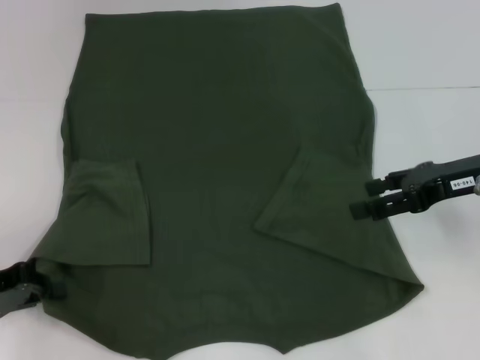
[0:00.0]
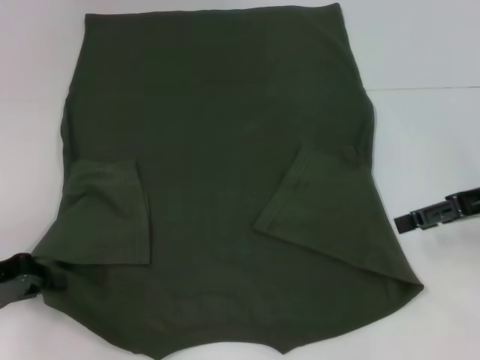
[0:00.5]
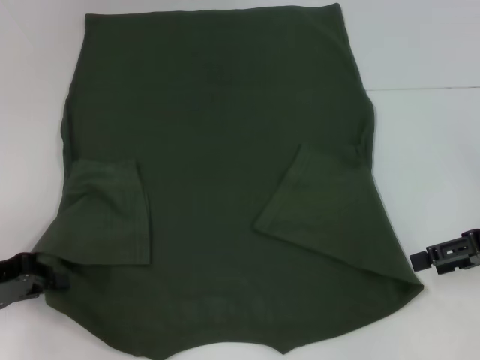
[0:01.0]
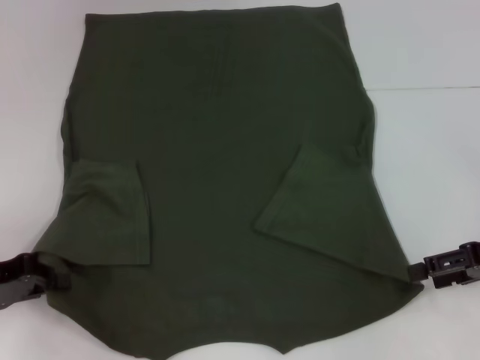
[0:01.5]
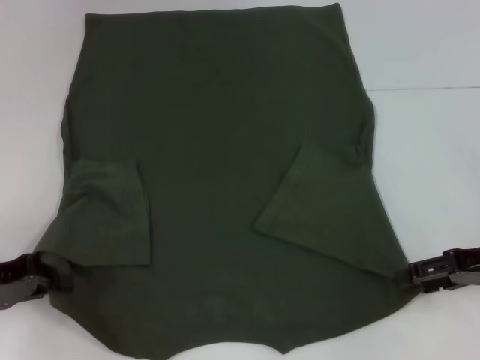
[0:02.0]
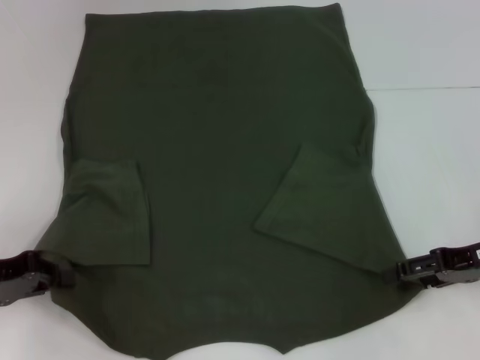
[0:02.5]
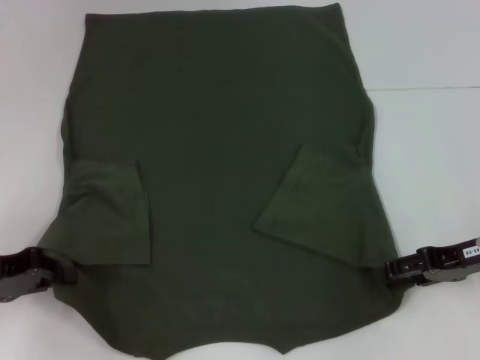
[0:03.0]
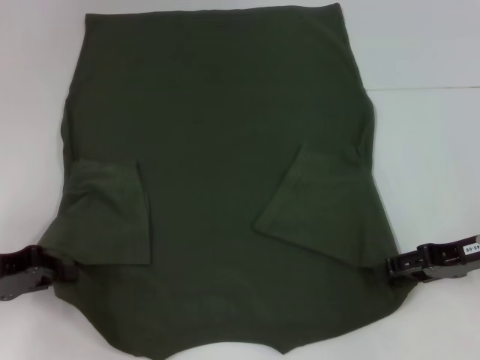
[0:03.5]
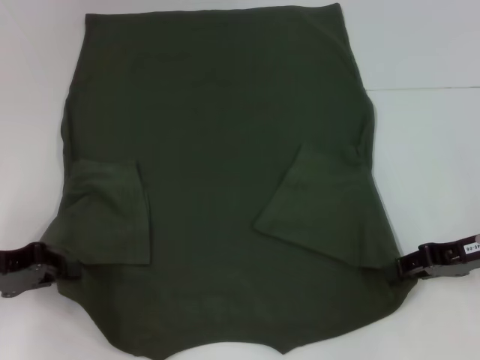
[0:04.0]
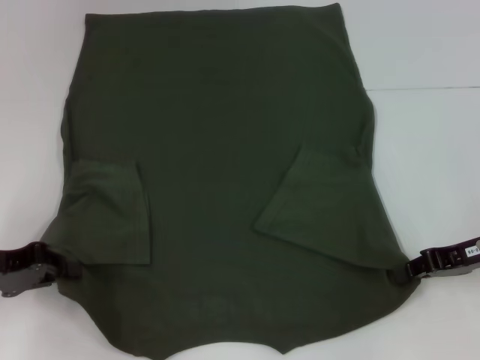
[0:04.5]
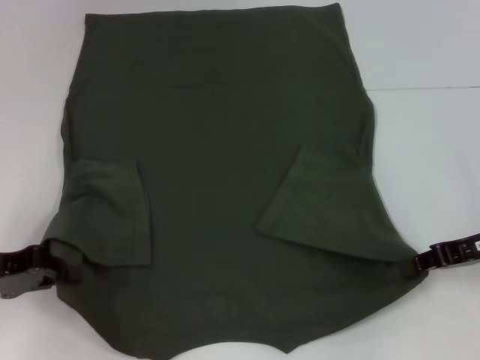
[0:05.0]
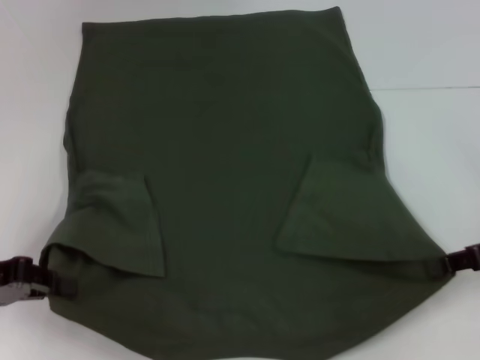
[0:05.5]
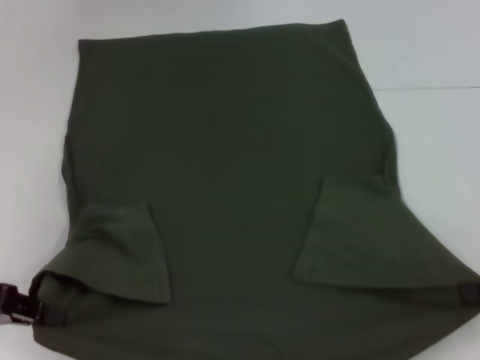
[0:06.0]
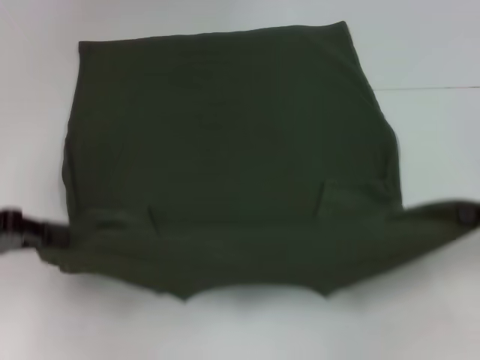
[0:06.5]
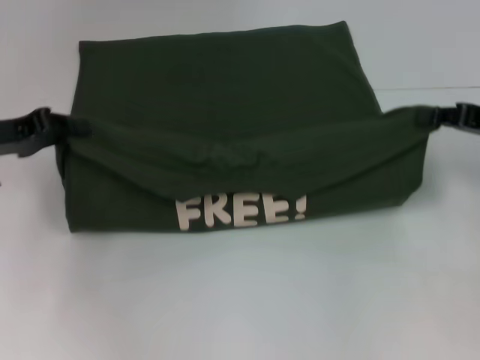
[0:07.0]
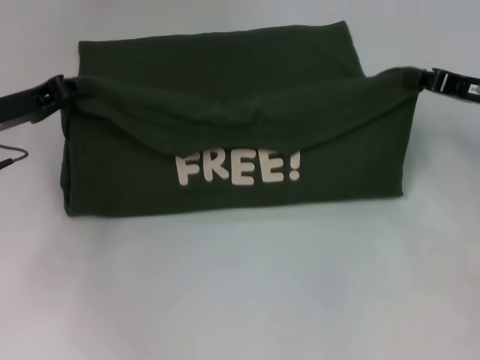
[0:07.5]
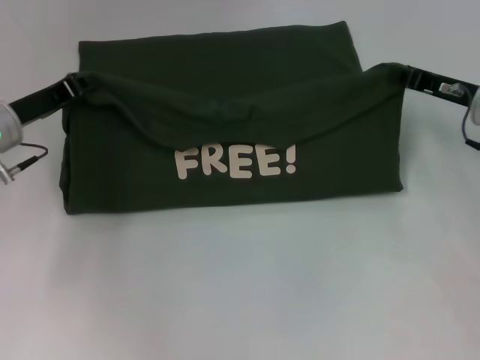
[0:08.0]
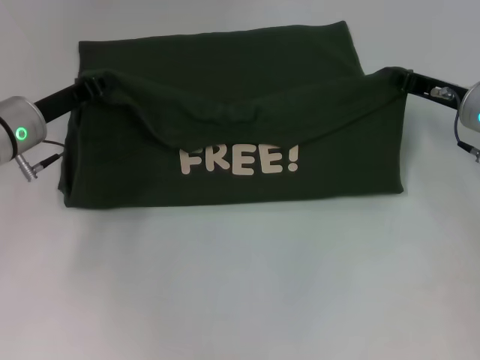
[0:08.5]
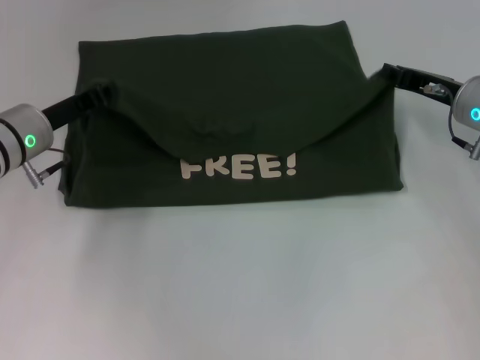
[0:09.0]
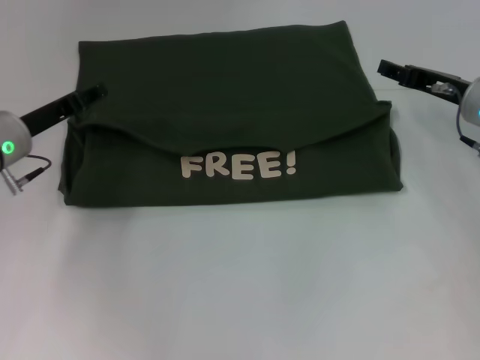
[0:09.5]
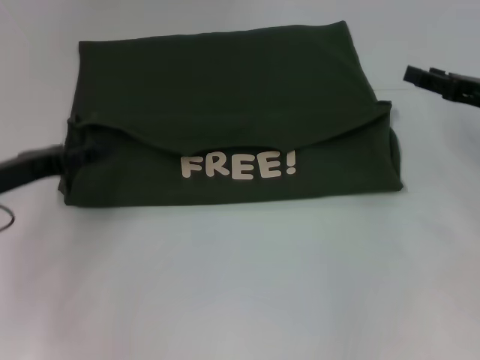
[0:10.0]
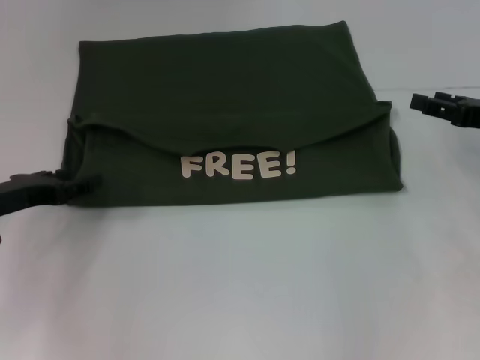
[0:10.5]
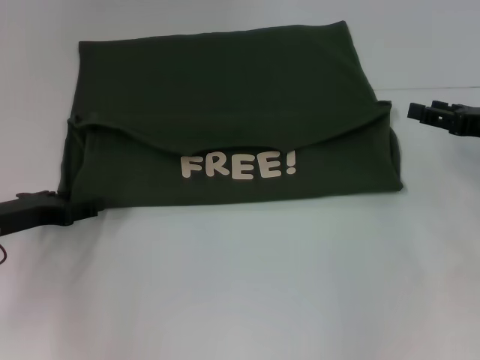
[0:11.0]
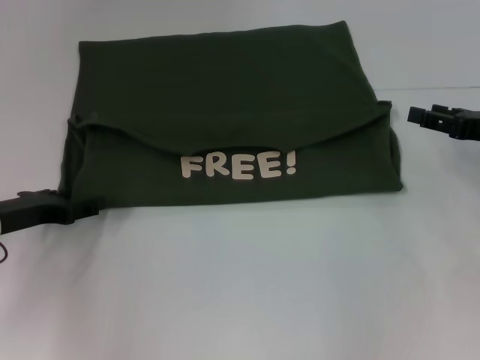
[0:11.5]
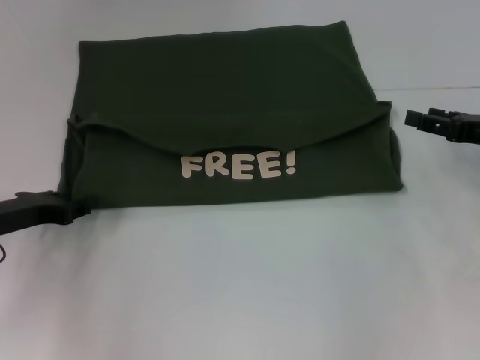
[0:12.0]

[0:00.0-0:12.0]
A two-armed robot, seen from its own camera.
Step, 0:00.5 to 0:04.5: Grab the bottom right corner with your right hand.
Step, 0:05.0 to 0:09.5: Fold the clothes with your left hand.
Step, 0:05.0 to 0:09.5: Fold the clothes with your right hand.
0:00.0 to 0:02.0: The right gripper is displaced downward by about 5 cm.
0:02.0 to 0:04.0: The right gripper closes.
0:04.0 to 0:06.0: The right gripper is displaced to the right and backward by approximately 10 cm, and closes up.
0:06.0 to 0:08.0: The right gripper travels forward and to the left by some 15 cm, while the left gripper travels forward and to the right by roughly 15 cm.
0:08.0 to 0:10.0: The right gripper changes place by about 5 cm, and opens. The left gripper is displaced backward by approximately 5 cm, and opens its fingers.
0:10.0 to 0:12.0: The grippers move only a little.

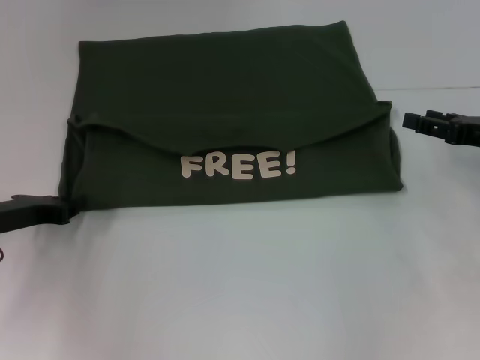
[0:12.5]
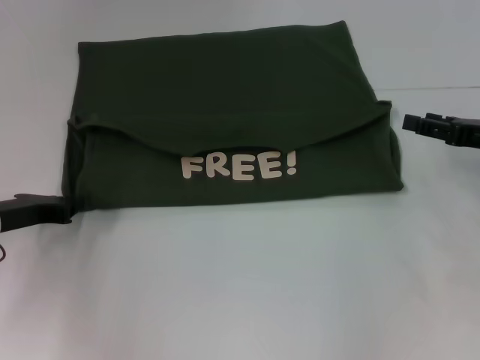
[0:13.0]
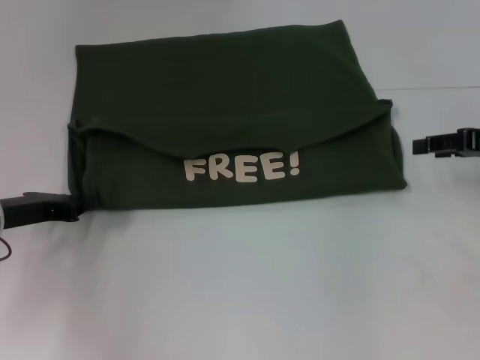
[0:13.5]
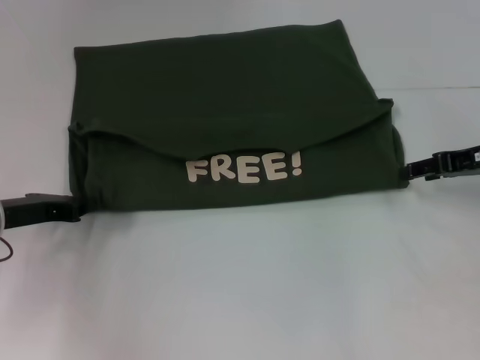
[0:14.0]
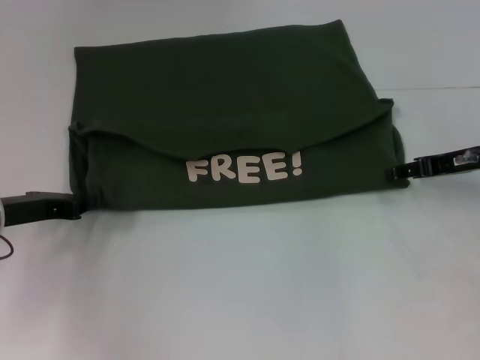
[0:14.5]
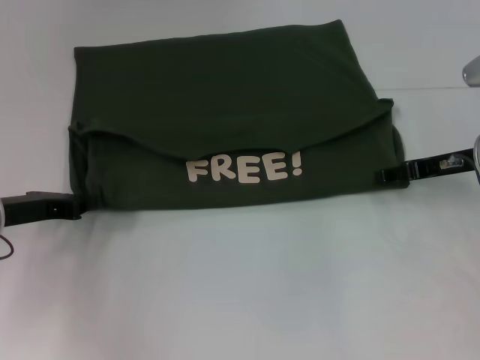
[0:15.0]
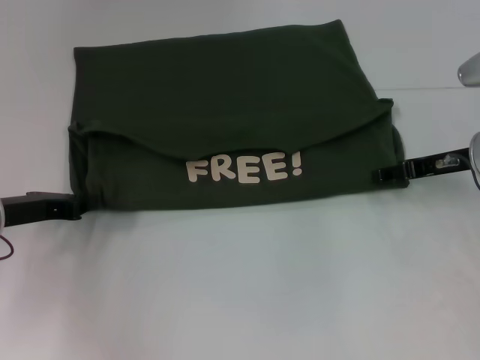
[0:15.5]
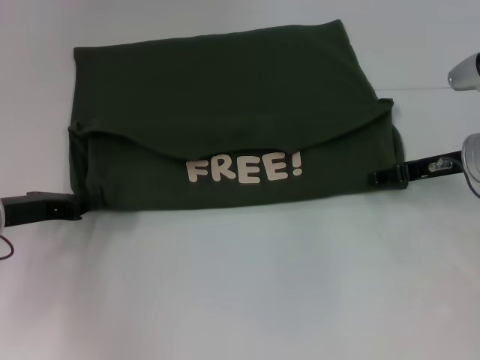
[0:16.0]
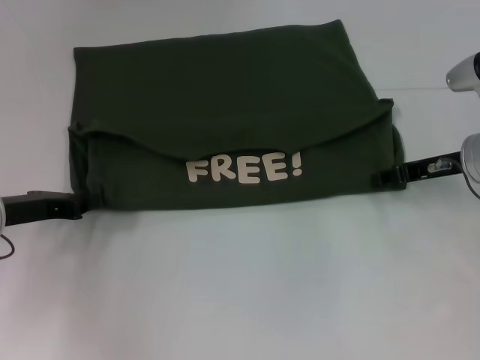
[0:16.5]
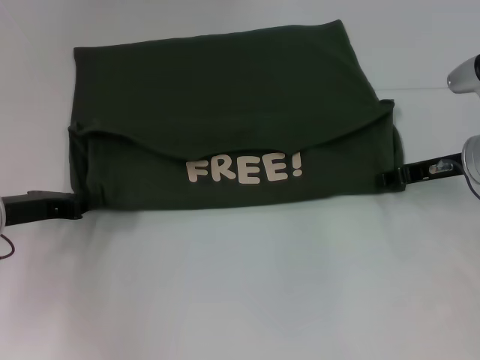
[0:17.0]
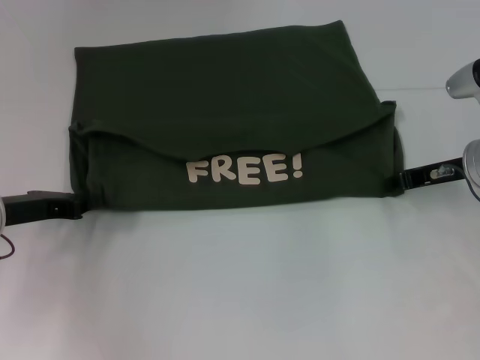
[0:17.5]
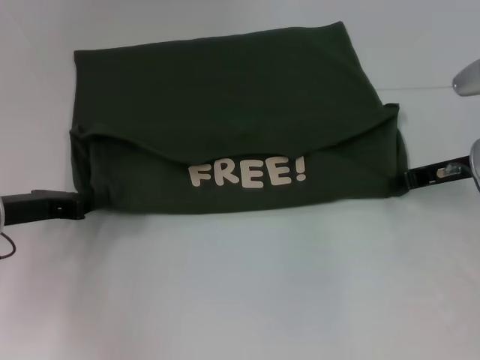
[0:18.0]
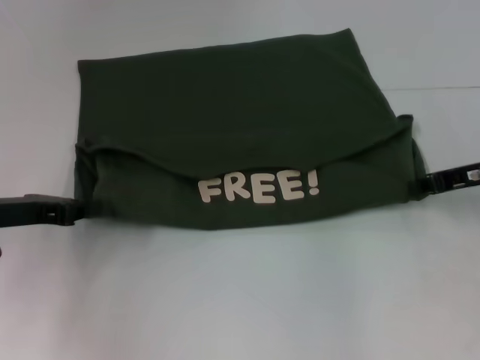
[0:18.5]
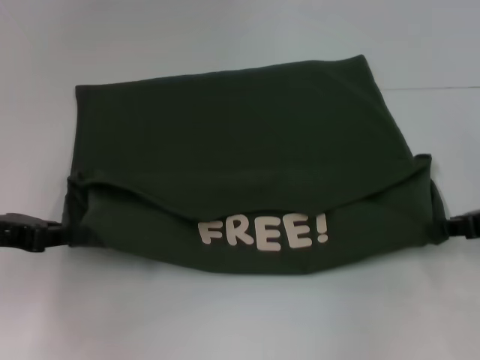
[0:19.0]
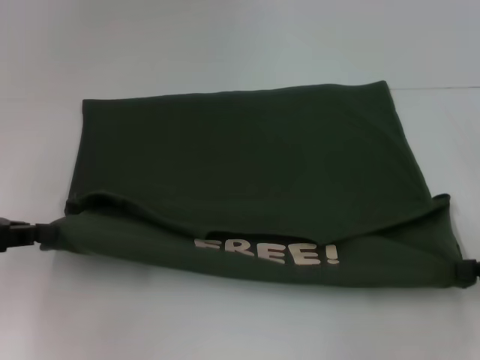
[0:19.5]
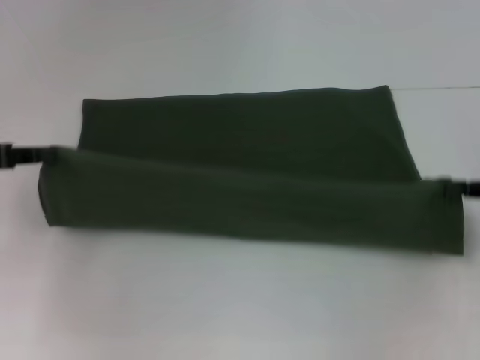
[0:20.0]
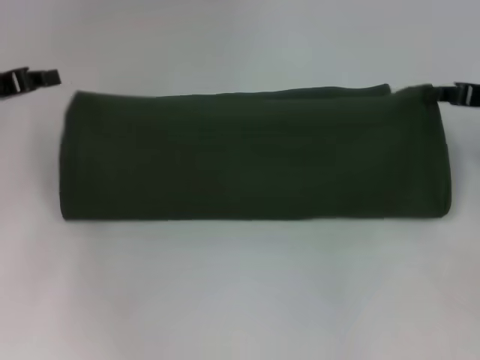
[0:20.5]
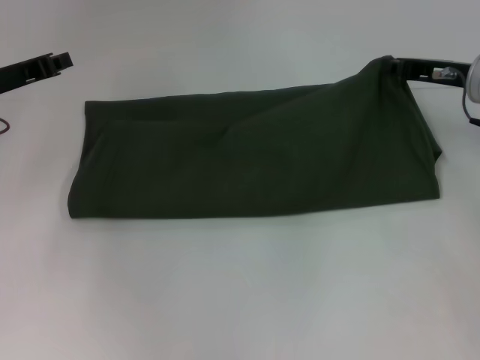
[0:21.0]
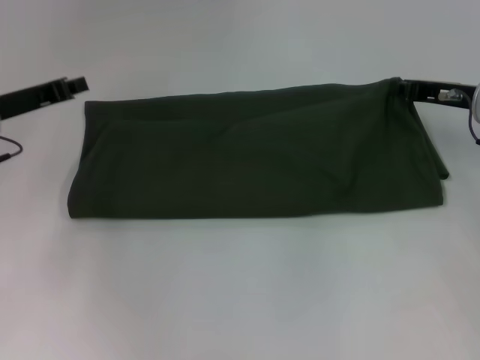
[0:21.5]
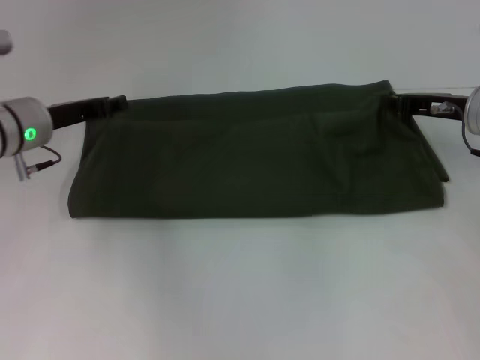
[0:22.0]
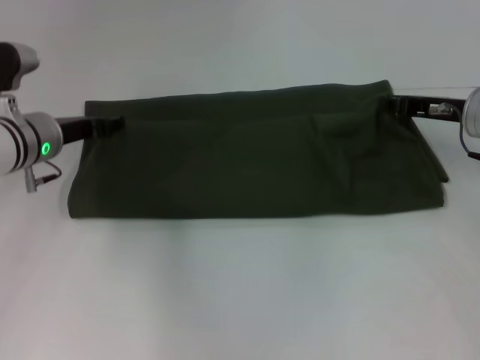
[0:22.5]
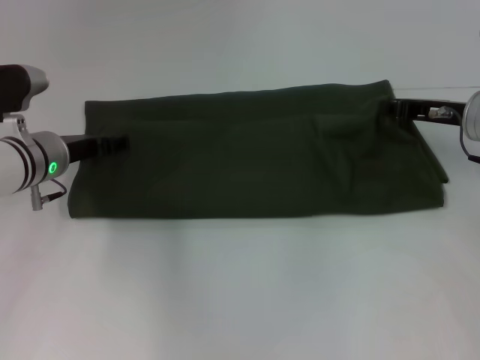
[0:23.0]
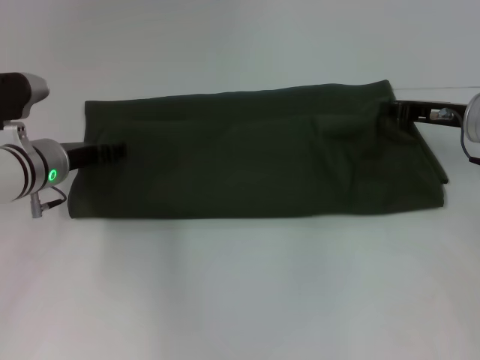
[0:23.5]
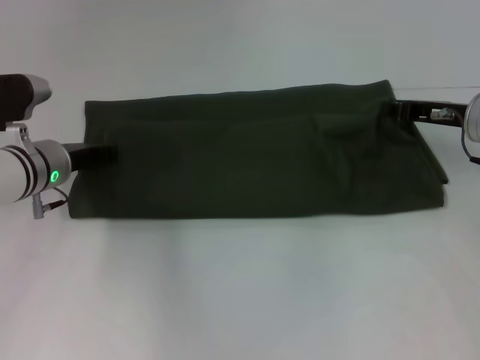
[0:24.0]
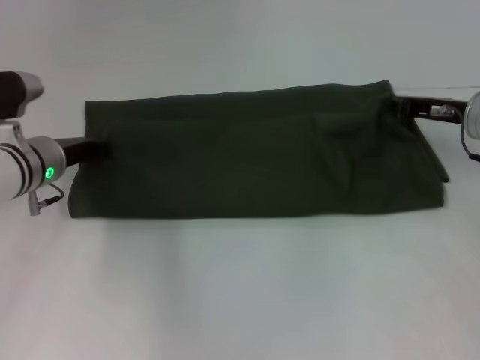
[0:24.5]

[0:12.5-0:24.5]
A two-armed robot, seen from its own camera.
Step, 0:12.5 to 0:19.0: Pull the clothes with your left hand.
Step, 0:12.5 to 0:19.0: Pull the clothes with your right hand.
0:12.5 to 0:14.5: The right gripper moves roughly 5 cm.
0:14.5 to 0:16.5: The grippers stay close to where they were, moving slightly.
0:16.5 to 0:18.5: The right gripper closes up.
0:18.5 to 0:20.5: The left gripper is displaced upward and forward by about 10 cm, while the right gripper goes backward and returns, roughly 10 cm each way.
0:20.5 to 0:22.5: The right gripper shifts about 5 cm to the left; the left gripper moves to the right and downward, about 10 cm, and opens up.
0:22.5 to 0:24.5: The left gripper closes.

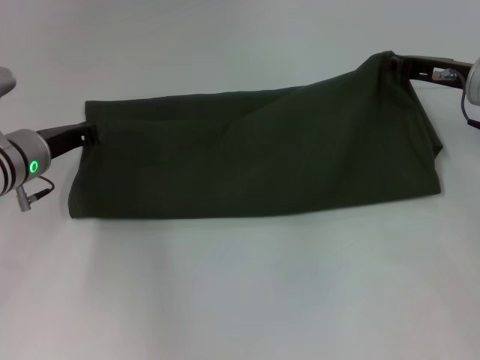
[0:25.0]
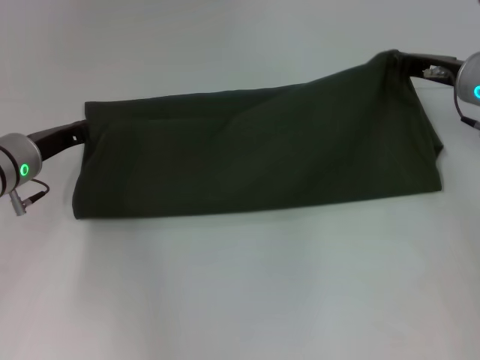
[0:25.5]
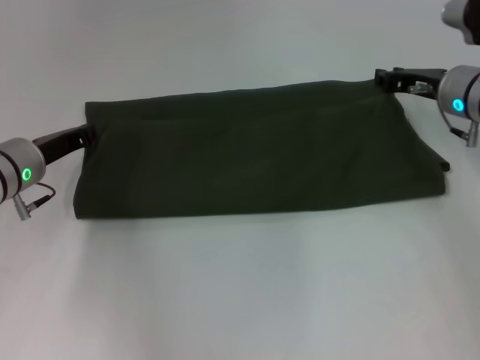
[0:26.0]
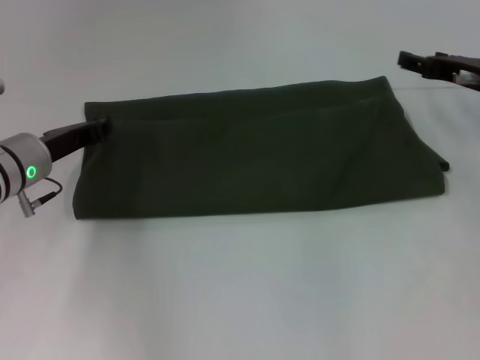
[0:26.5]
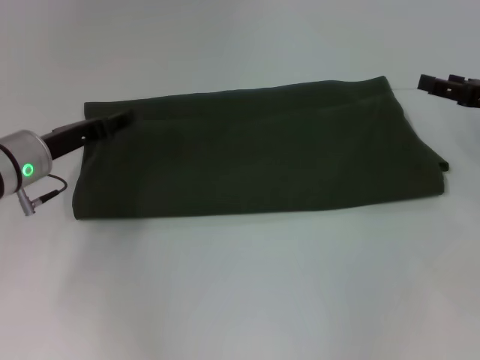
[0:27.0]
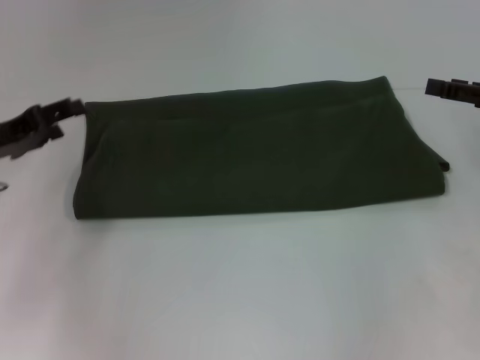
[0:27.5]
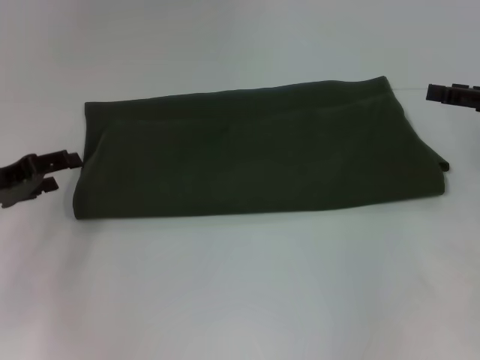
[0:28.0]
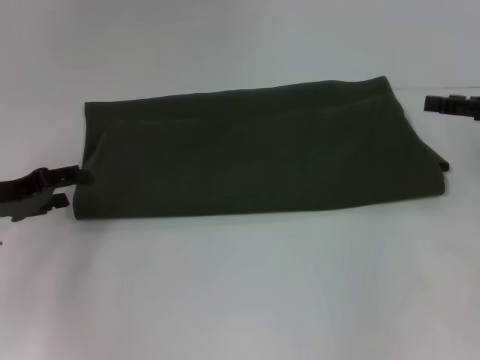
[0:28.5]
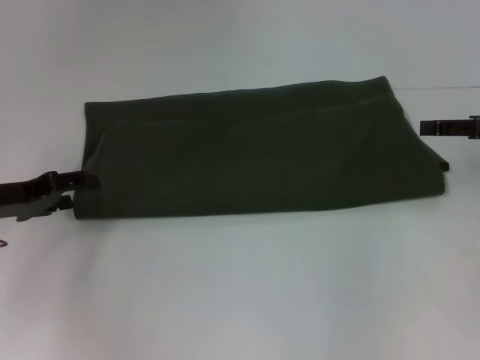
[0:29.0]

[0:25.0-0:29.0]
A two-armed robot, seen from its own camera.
0:25.0 to 0:27.0: The left gripper opens; the right gripper moves to the right and backward, approximately 10 cm, and opens.
0:27.0 to 0:29.0: The left gripper is displaced to the left by about 5 cm.
